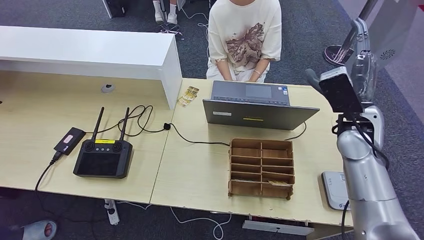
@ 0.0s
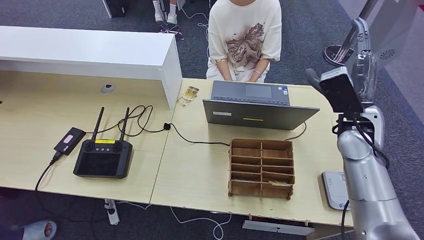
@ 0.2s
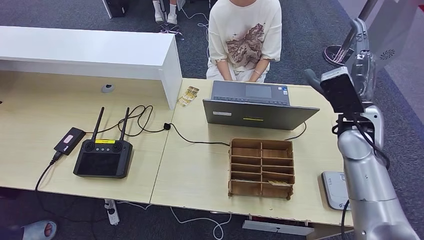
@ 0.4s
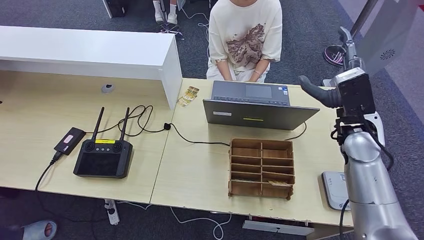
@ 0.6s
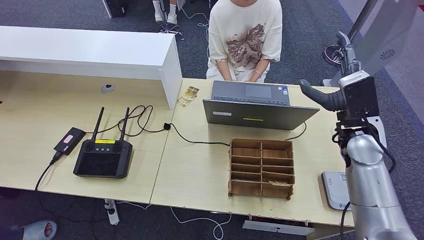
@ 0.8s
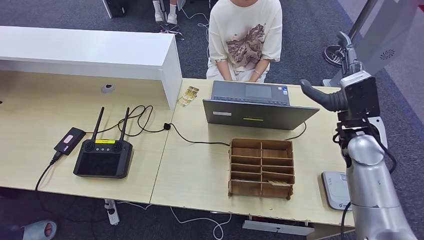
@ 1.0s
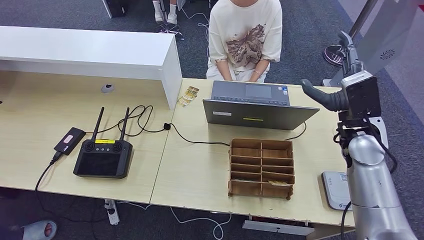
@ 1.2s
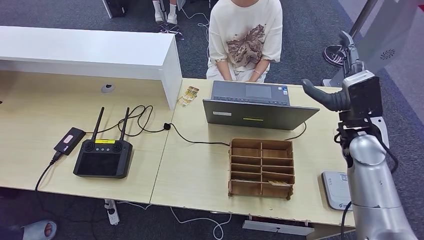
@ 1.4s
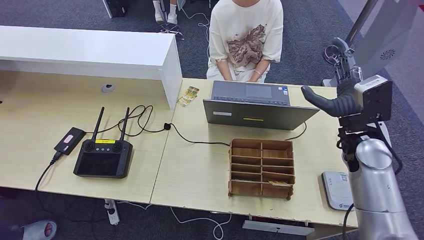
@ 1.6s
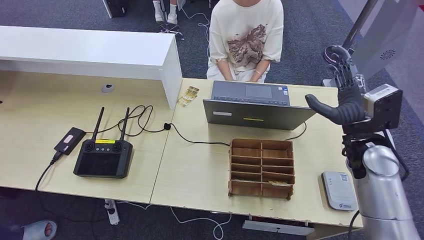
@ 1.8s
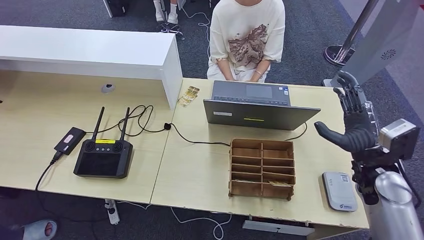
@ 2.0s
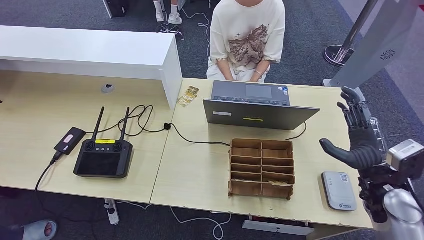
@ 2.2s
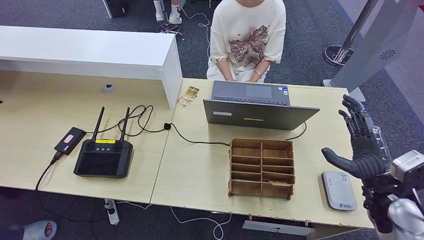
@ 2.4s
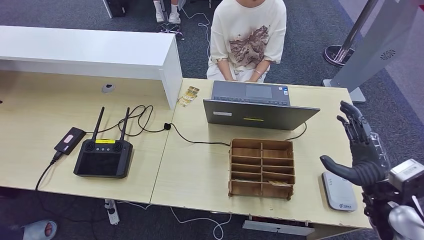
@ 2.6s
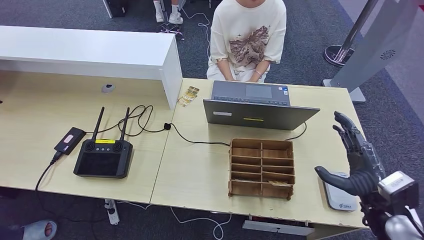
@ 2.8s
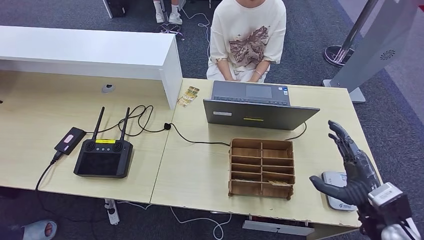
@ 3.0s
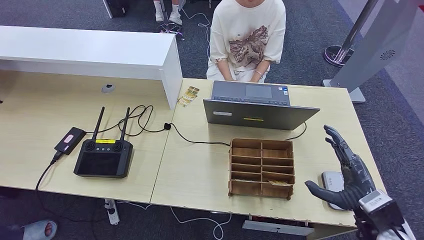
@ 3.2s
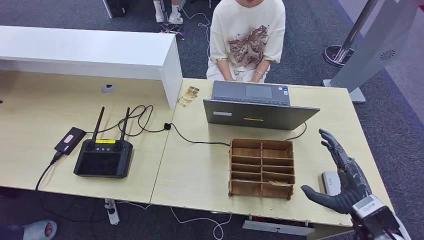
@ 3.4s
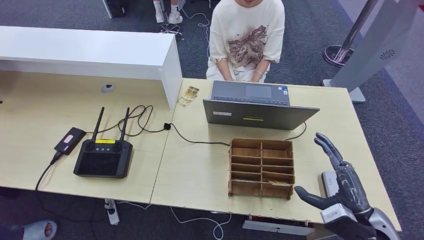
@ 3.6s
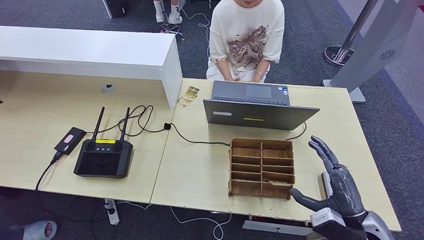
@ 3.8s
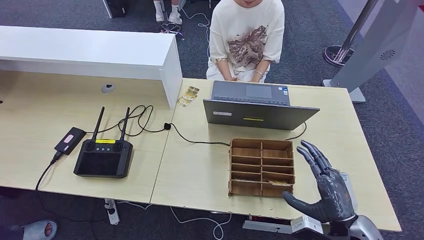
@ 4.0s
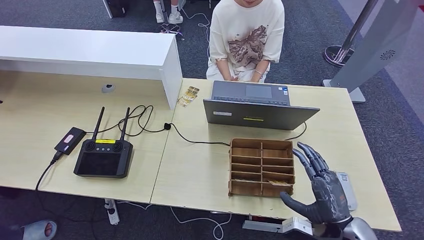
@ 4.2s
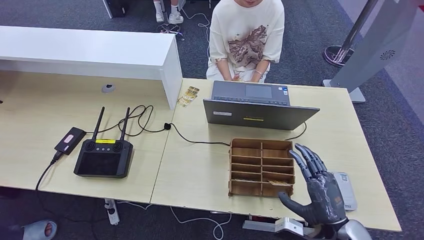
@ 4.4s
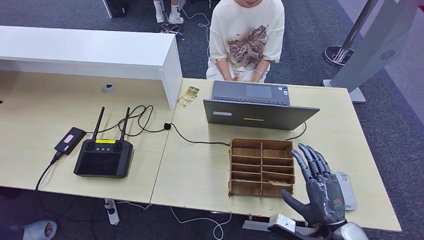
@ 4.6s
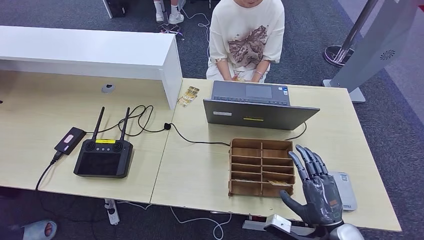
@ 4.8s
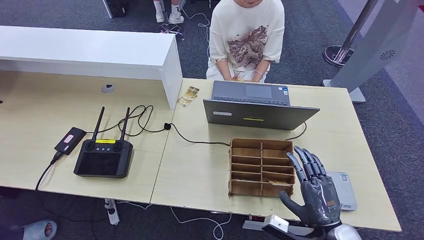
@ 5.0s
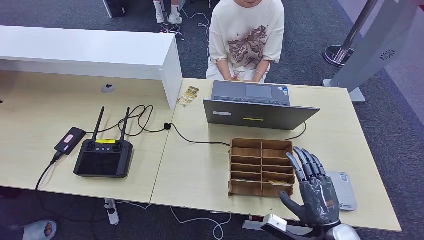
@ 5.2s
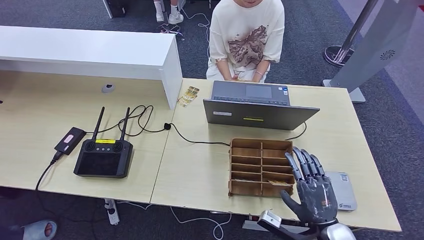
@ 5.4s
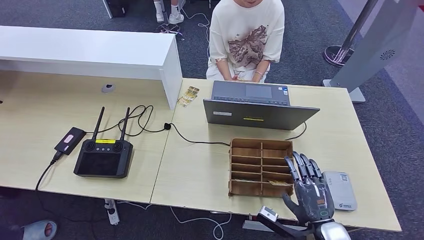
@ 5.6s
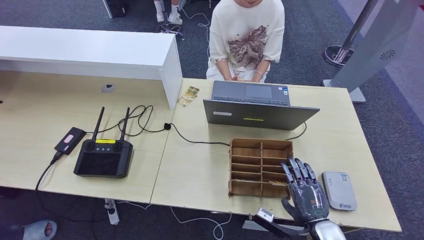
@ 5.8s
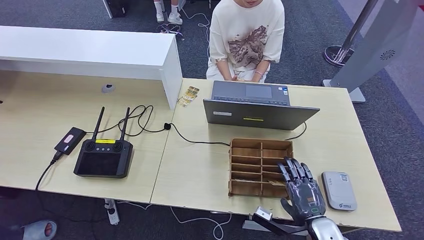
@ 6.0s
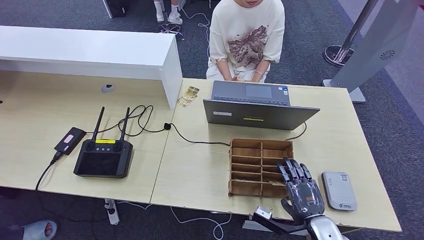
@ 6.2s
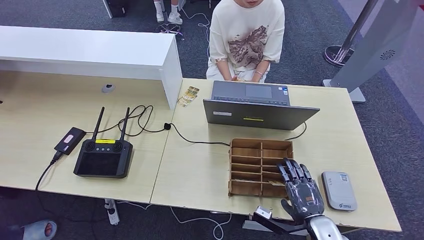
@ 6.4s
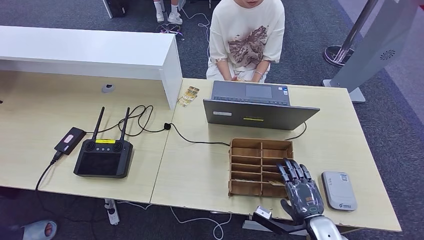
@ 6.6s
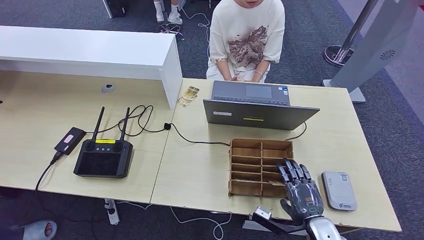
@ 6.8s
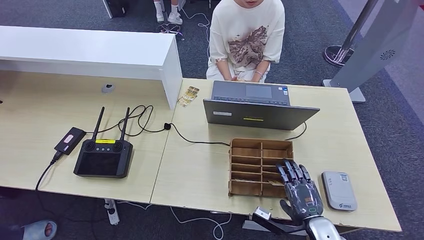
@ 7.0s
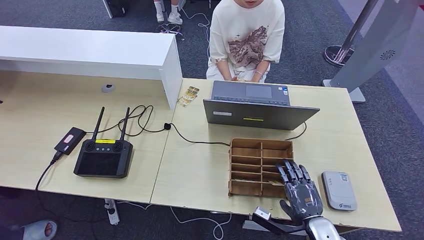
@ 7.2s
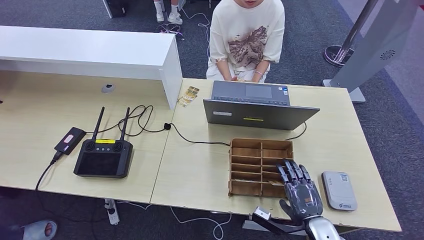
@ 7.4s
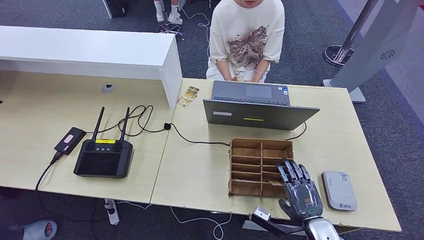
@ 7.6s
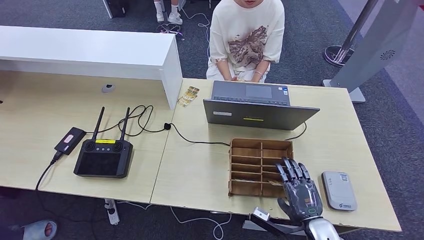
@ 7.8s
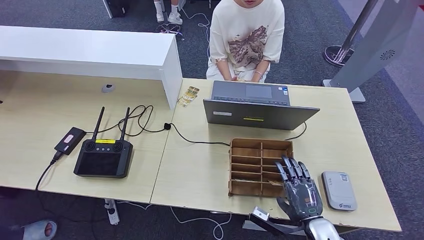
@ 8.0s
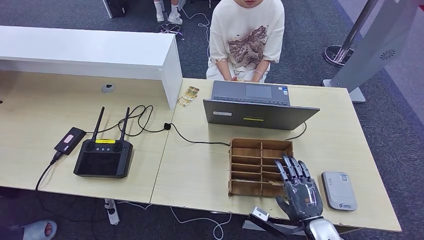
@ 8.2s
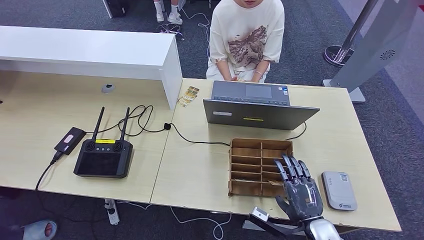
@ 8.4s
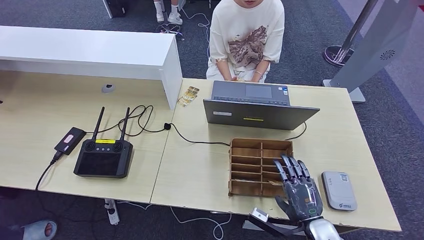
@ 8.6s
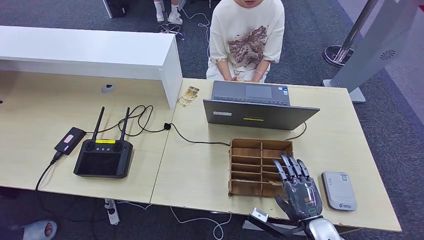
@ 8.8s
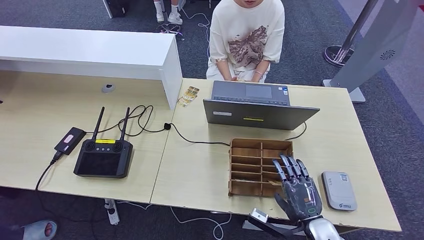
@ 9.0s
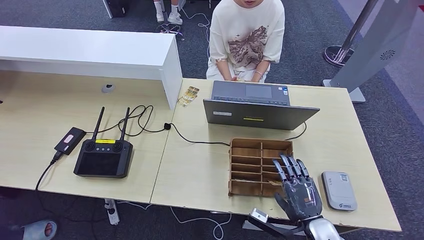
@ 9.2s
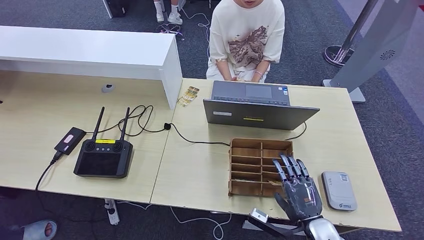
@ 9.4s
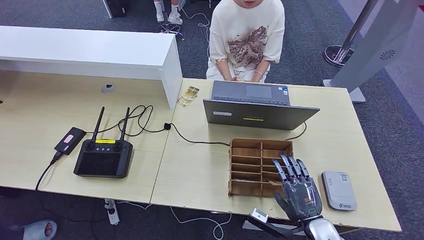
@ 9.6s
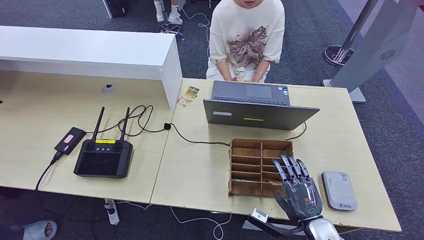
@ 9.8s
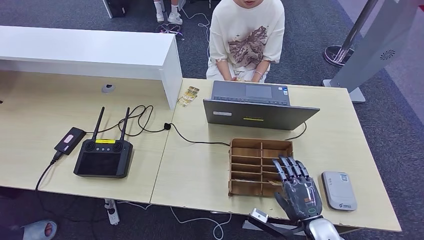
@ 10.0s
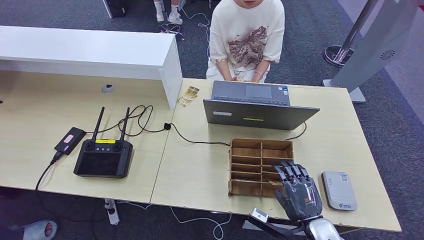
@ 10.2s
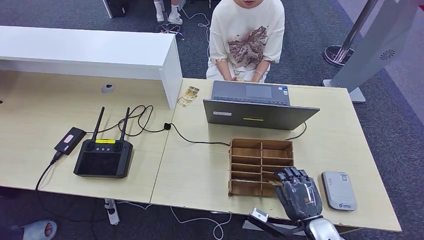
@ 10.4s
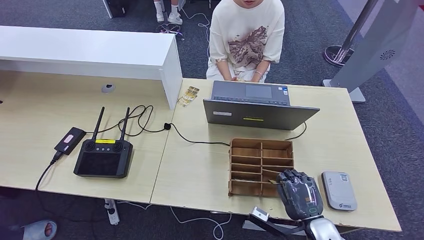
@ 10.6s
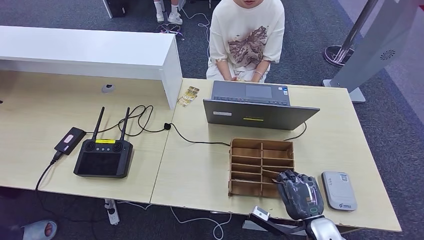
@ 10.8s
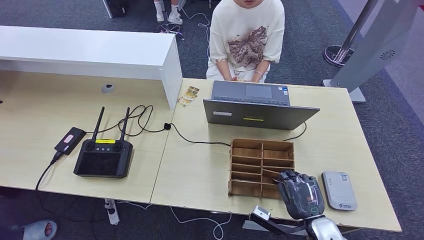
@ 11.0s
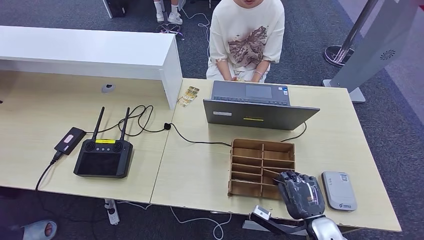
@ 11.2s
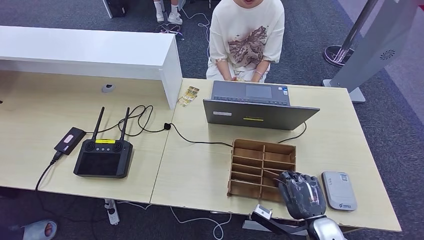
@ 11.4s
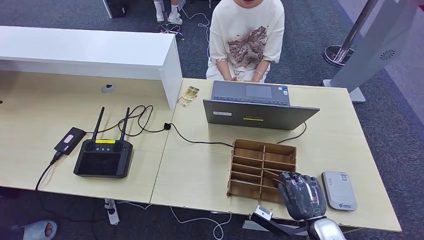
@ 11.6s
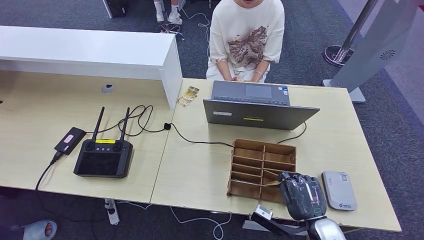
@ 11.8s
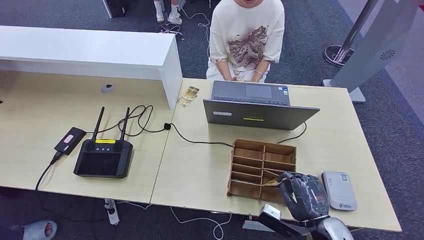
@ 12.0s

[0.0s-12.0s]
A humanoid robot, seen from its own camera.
1.6s to 3.0s: The right hand is displaced backward and downward by approximately 20 cm.
3.0s to 4.4s: The right hand heads to the left, covering roughly 5 cm.
4.4s to 6.0s: The right hand is displaced downward by about 5 cm.
6.0s to 7.6s: Neither hand changes place.
7.6s to 9.0s: The hands move only a little.
9.0s to 10.4s: Both hands stay put.
10.4s to 12.0s: The hands stay close to where they were, moving slightly.

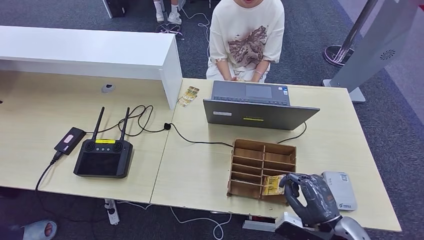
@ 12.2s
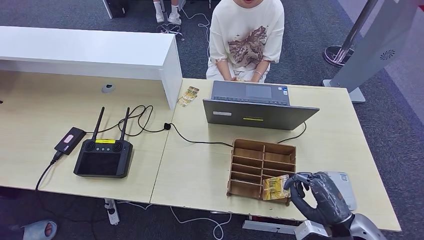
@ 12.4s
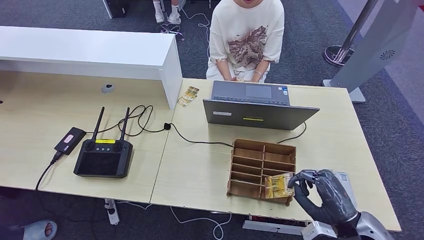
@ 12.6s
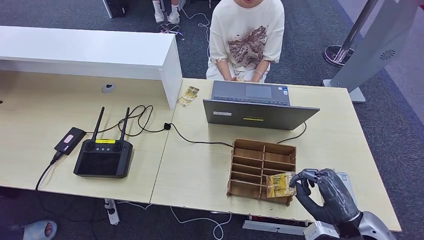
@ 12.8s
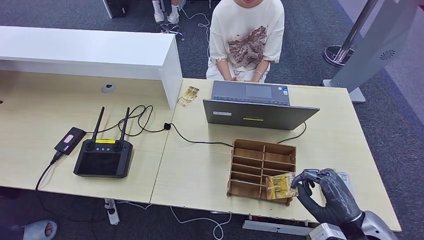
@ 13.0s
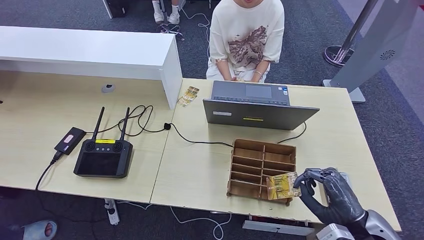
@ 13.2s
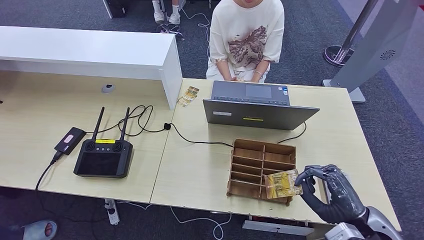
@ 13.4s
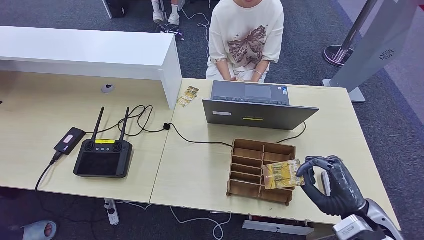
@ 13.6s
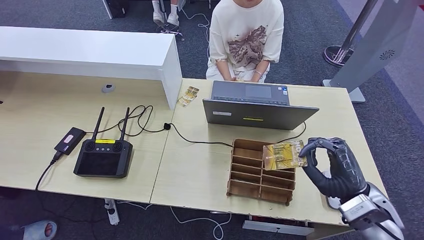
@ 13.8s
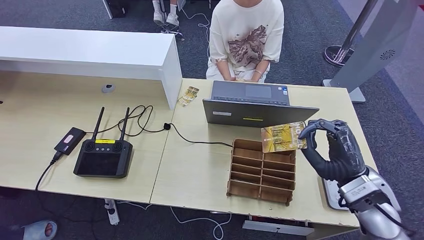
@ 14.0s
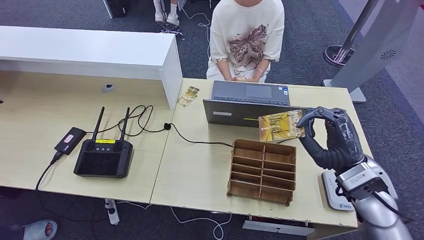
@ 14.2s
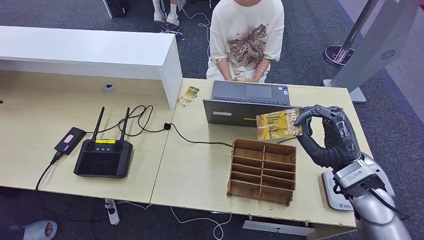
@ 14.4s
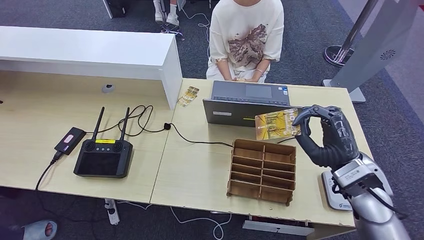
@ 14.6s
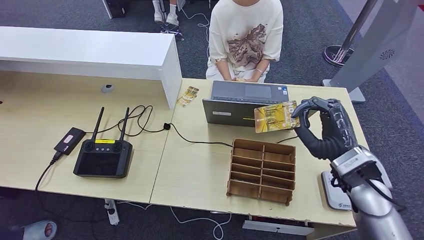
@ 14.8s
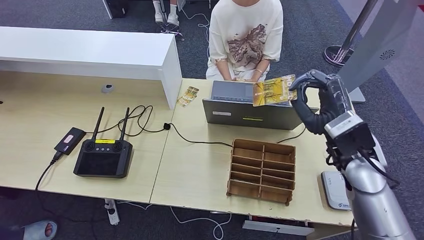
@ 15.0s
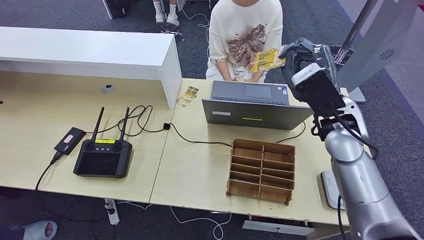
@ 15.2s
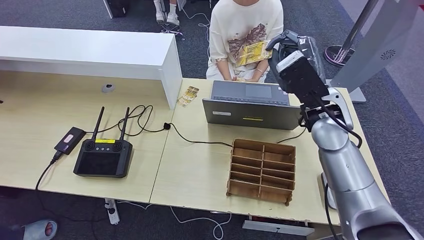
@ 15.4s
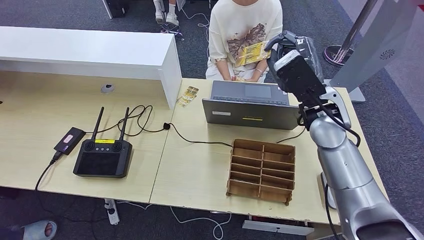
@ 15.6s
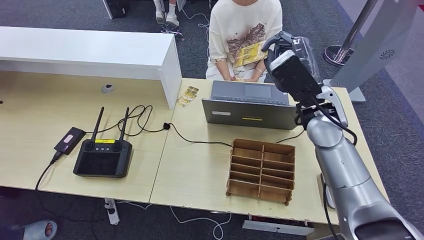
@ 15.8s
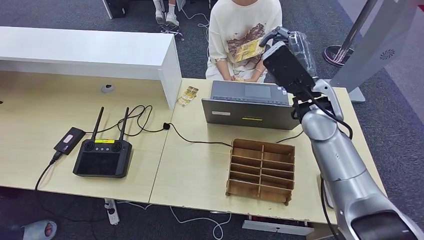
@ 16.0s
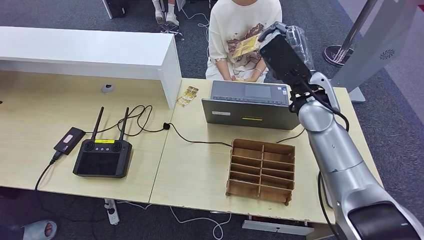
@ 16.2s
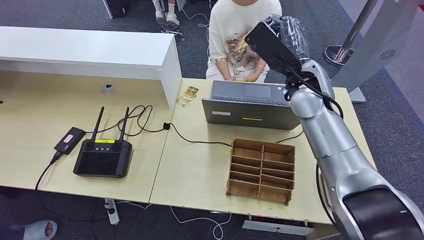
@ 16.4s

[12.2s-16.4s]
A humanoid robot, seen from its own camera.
Step, 13.0s to 16.4s: Hand the room key to the person.
12.2s to 13.6s: The right hand heads upward, covering approximately 5 cm.
13.6s to 15.0s: The right hand heads forward and upward, covering some 15 cm.
15.0s to 16.4s: The right hand heads forward, to the left and upward, covering about 15 cm.
